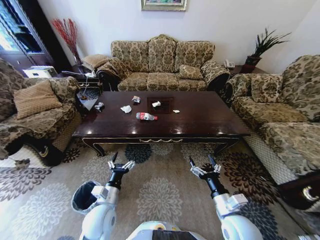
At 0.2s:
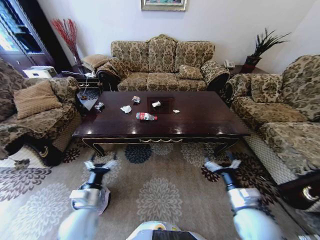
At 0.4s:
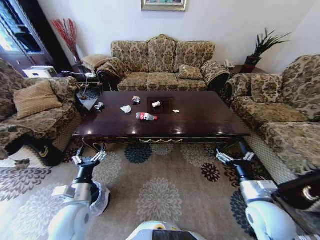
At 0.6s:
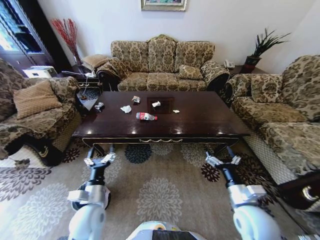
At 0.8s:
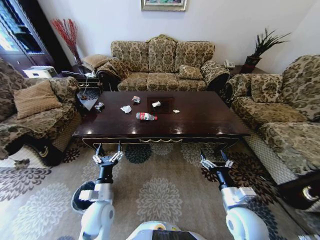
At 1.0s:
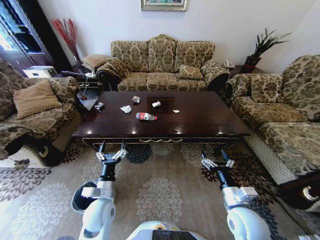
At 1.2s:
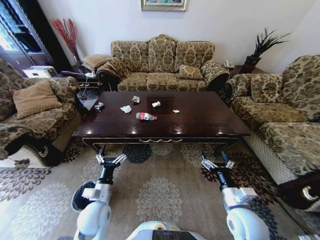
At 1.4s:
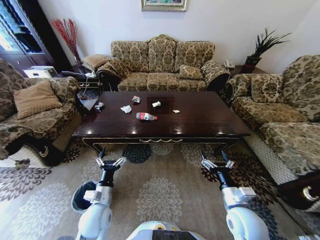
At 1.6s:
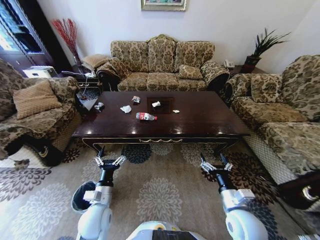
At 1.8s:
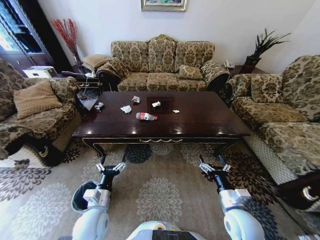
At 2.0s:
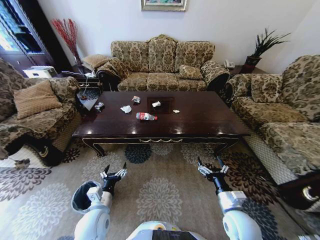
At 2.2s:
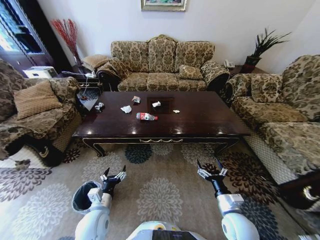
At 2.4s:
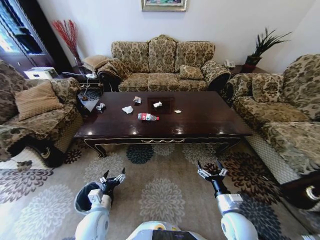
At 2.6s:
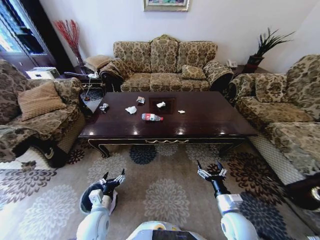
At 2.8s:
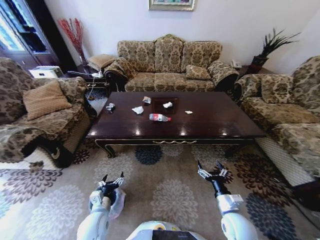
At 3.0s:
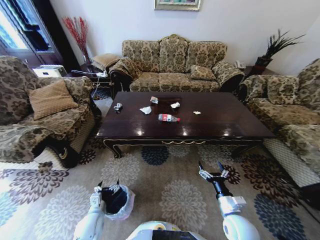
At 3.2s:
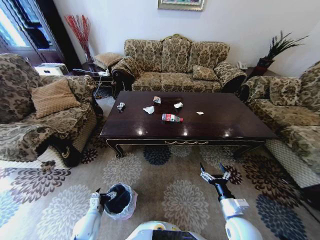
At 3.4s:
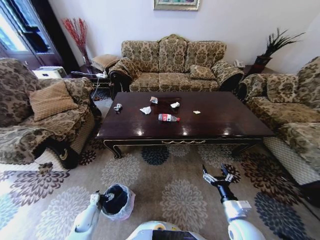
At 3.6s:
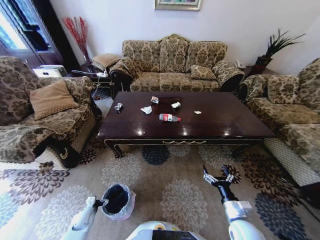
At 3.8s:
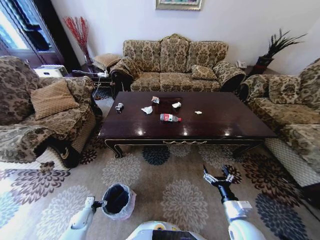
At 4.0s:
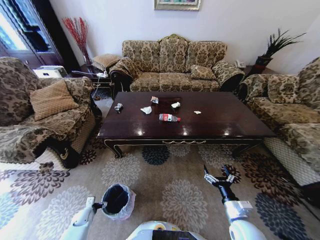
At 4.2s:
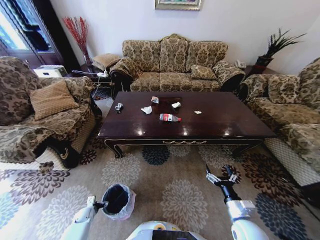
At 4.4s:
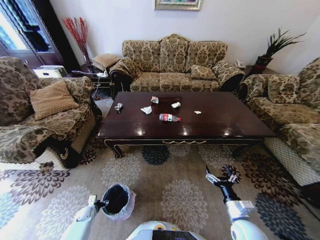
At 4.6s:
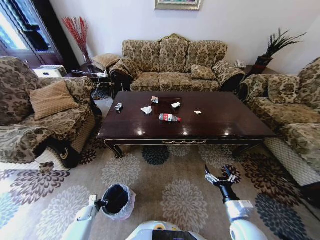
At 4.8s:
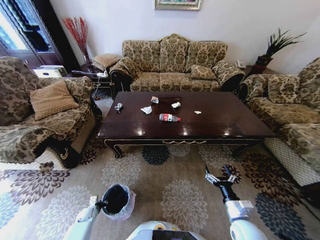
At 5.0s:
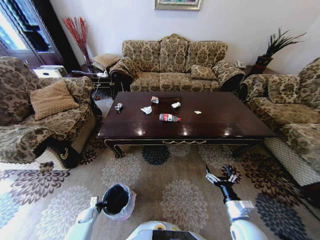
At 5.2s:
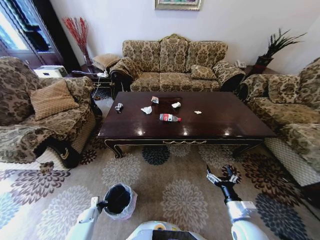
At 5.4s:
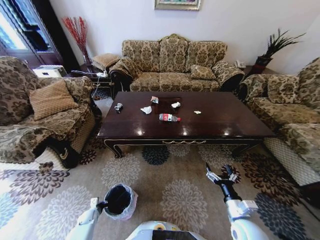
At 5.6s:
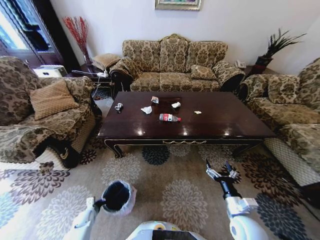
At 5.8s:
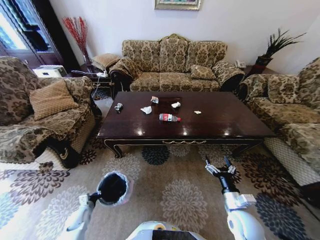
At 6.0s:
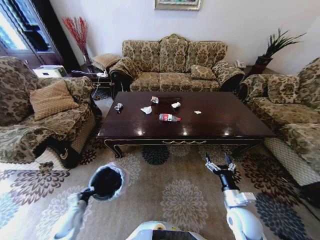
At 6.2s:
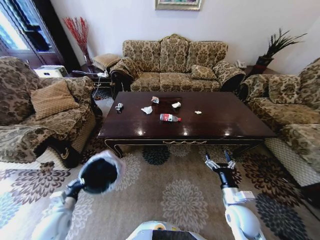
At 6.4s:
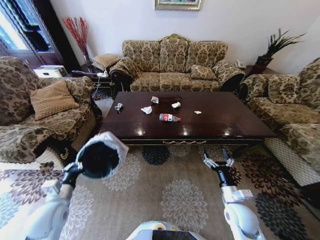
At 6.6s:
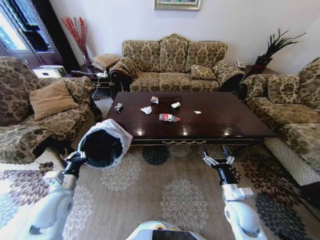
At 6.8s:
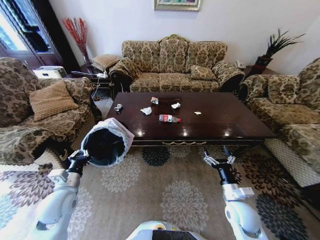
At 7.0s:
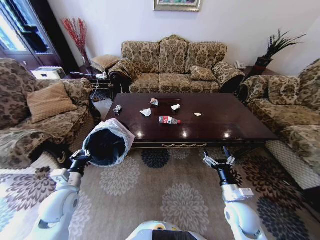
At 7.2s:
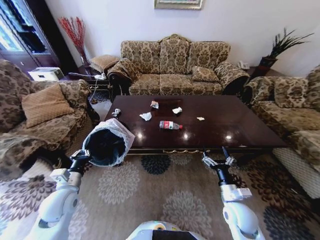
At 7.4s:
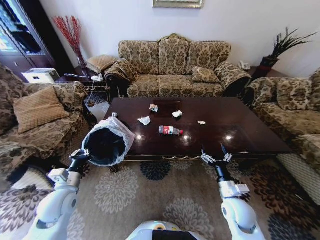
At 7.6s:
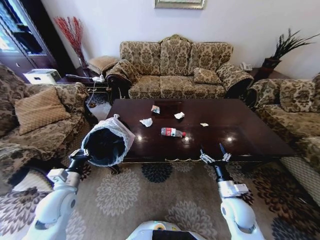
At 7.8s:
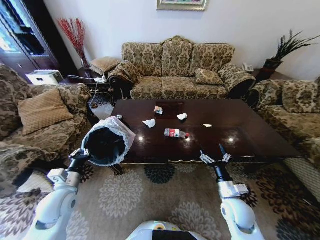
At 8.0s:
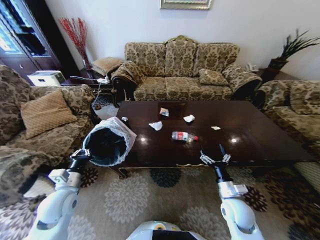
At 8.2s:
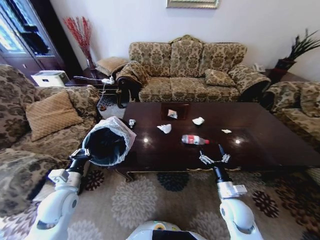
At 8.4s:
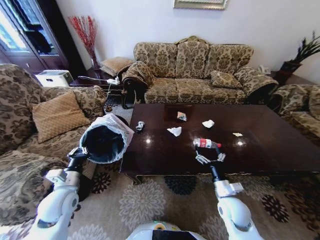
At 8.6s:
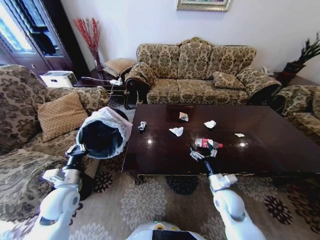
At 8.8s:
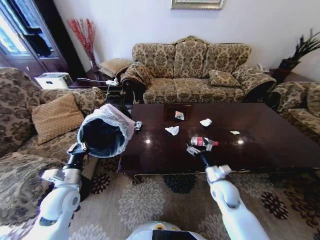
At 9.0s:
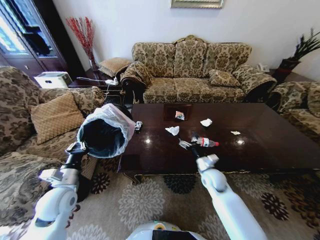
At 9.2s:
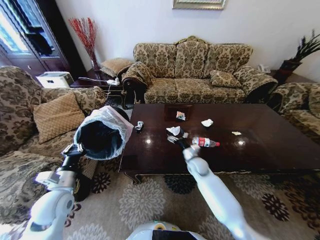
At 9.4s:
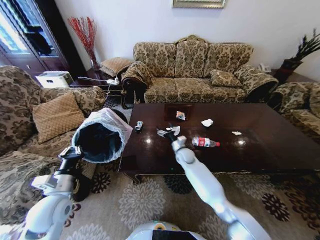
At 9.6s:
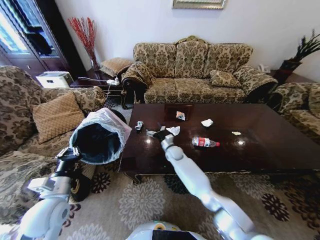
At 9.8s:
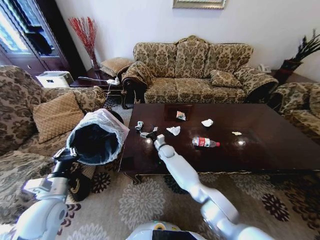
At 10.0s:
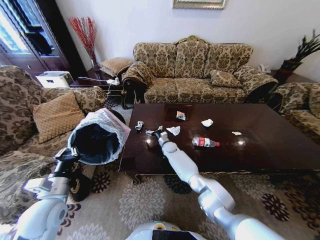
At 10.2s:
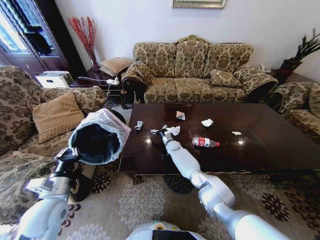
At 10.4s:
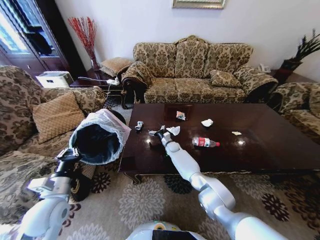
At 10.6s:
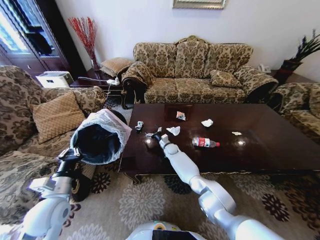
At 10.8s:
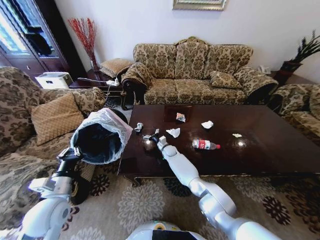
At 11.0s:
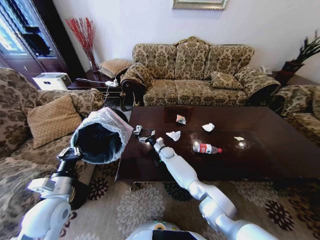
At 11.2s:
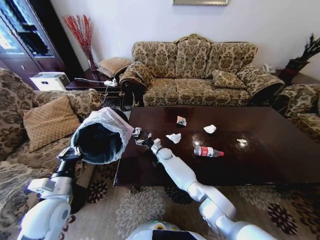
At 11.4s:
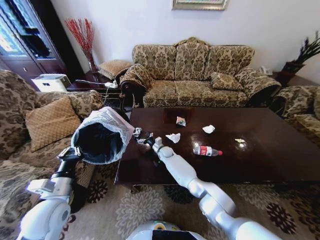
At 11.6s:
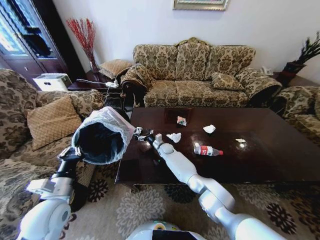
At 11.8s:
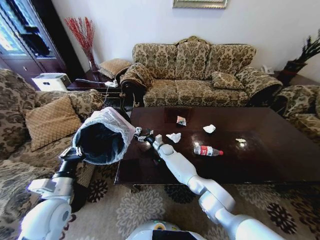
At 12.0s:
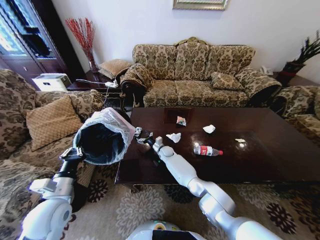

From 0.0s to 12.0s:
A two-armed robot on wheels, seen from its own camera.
Task of the whole recording: Move to the front of the table and place the trash on the table into the trash bin.
From 1.6s to 3.0s: The left gripper is displaced downward and to the left by roughly 10 cm, while the right gripper travels downward by some 5 cm.
From 3.0s to 4.4s: The left gripper shifts about 25 cm downward and to the left.
From 4.4s to 6.0s: The left gripper goes about 15 cm upward, and closes its fingers.
From 6.0s to 7.6s: The left gripper heads upward, covering approximately 20 cm.
From 7.6s to 9.0s: The right gripper goes about 15 cm forward.
From 9.0s to 10.4s: The right gripper moves forward and to the left, about 25 cm.
From 10.4s to 12.0s: The right gripper changes place by some 5 cm.

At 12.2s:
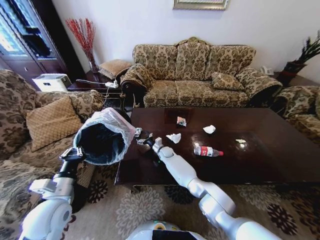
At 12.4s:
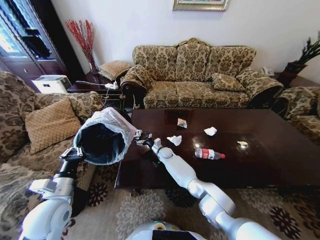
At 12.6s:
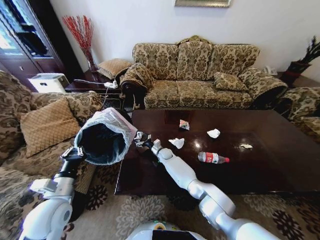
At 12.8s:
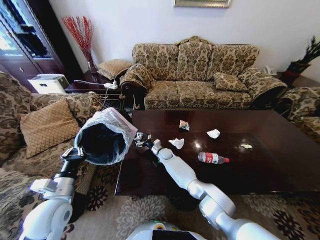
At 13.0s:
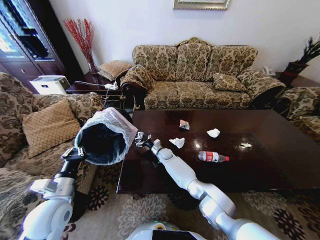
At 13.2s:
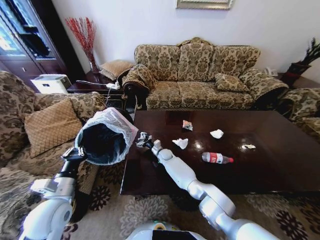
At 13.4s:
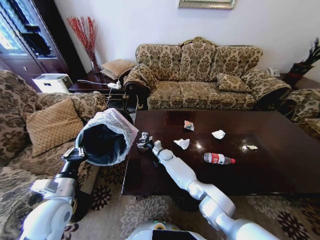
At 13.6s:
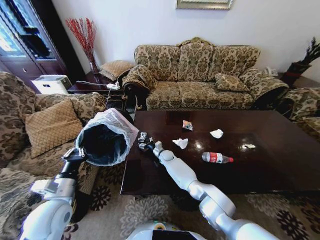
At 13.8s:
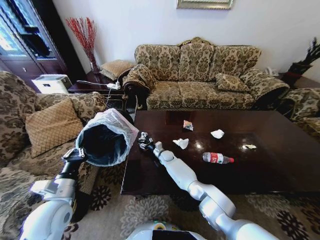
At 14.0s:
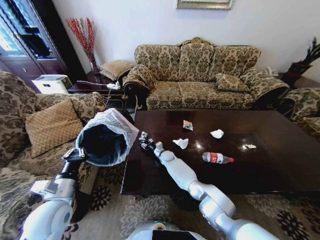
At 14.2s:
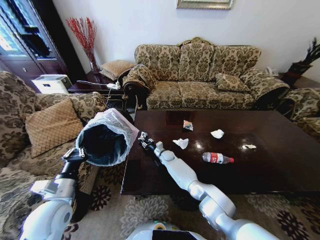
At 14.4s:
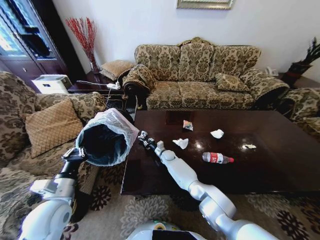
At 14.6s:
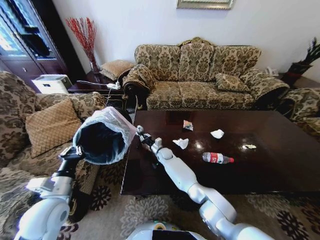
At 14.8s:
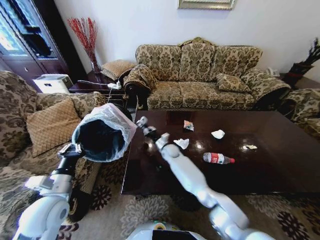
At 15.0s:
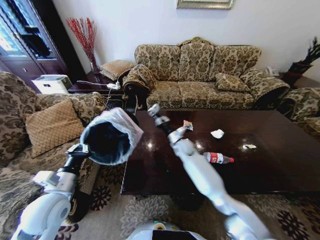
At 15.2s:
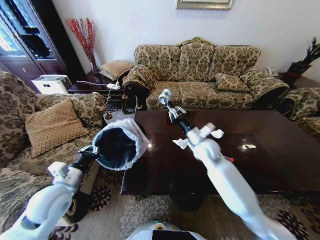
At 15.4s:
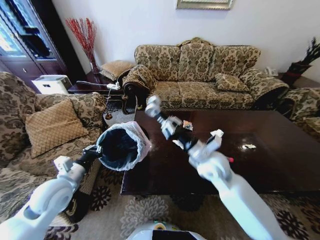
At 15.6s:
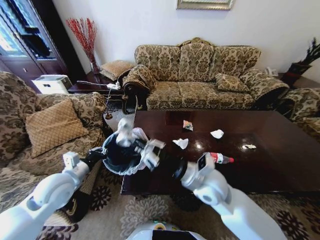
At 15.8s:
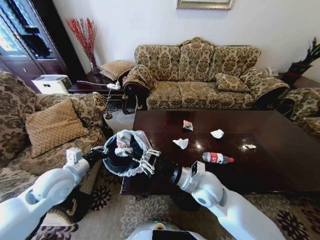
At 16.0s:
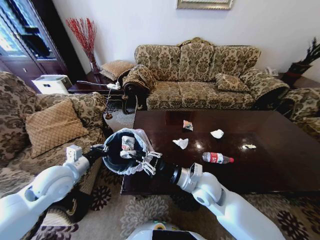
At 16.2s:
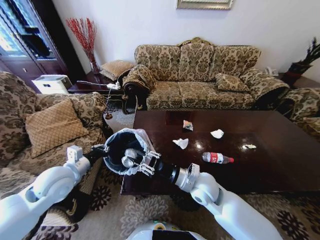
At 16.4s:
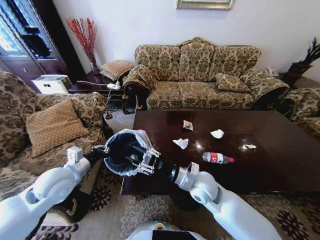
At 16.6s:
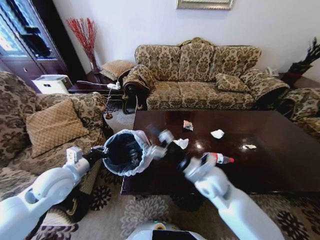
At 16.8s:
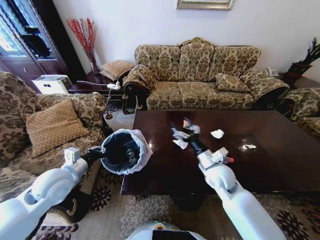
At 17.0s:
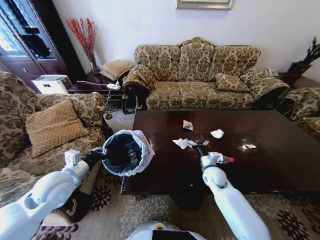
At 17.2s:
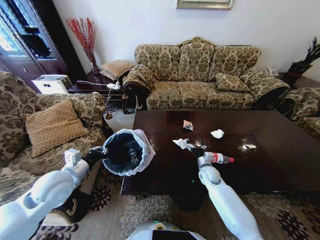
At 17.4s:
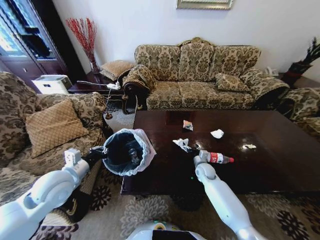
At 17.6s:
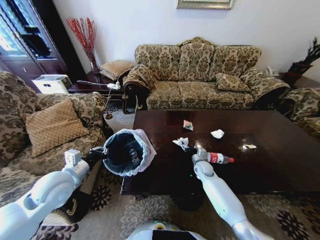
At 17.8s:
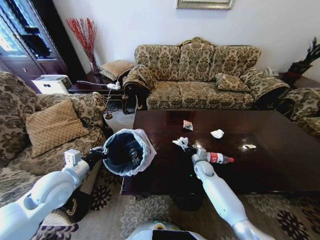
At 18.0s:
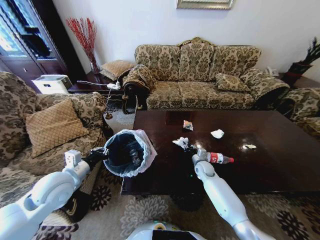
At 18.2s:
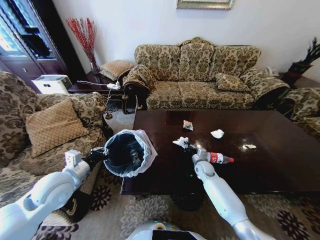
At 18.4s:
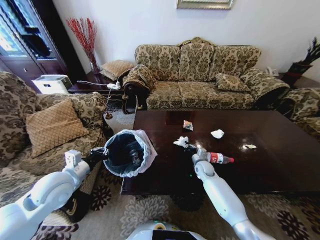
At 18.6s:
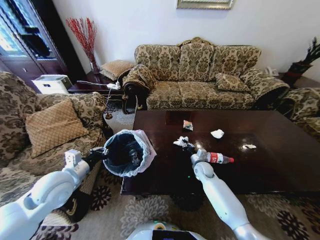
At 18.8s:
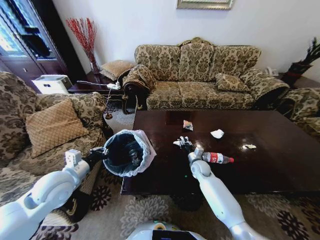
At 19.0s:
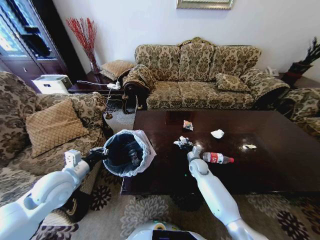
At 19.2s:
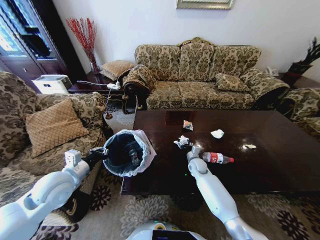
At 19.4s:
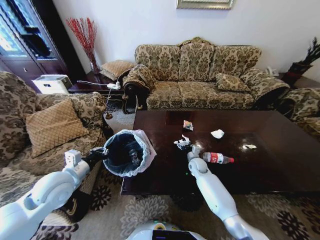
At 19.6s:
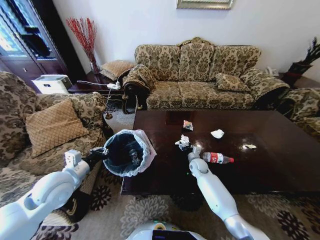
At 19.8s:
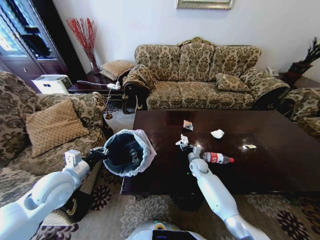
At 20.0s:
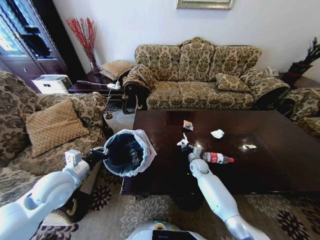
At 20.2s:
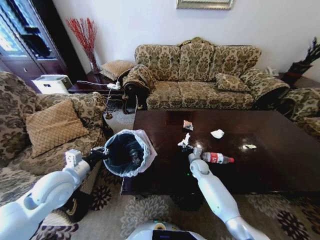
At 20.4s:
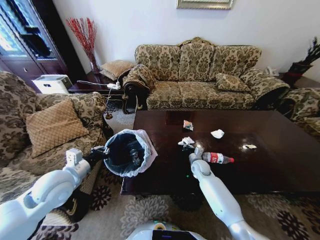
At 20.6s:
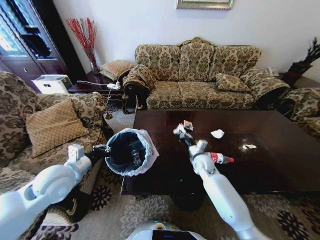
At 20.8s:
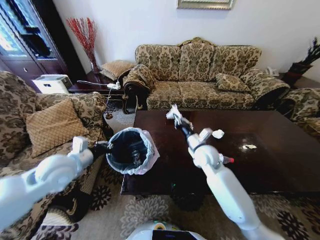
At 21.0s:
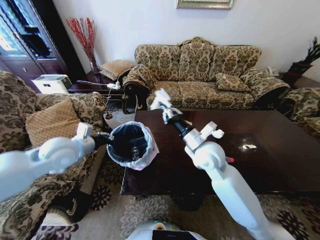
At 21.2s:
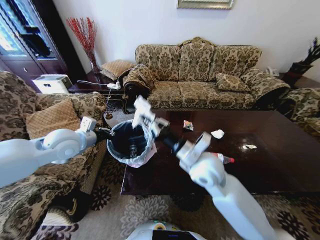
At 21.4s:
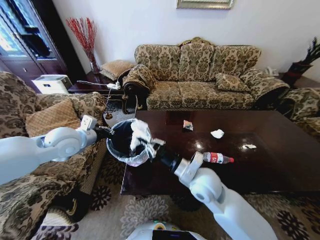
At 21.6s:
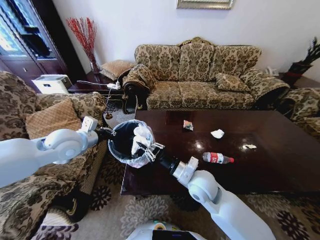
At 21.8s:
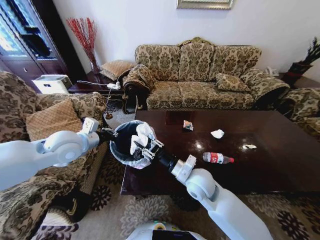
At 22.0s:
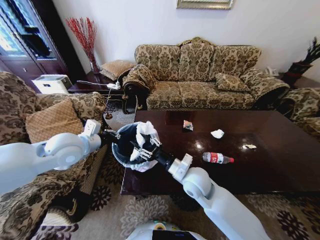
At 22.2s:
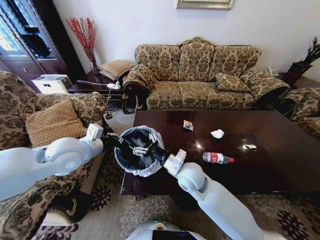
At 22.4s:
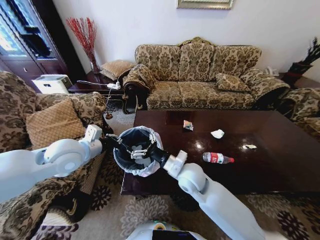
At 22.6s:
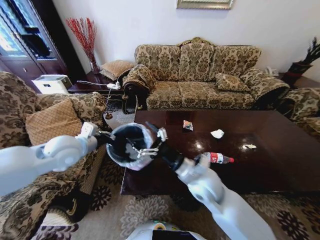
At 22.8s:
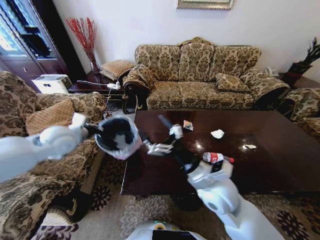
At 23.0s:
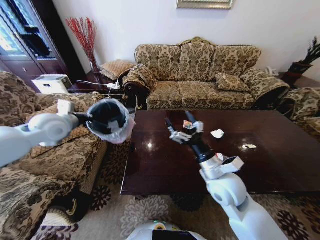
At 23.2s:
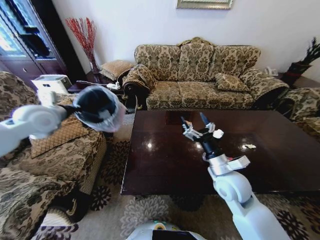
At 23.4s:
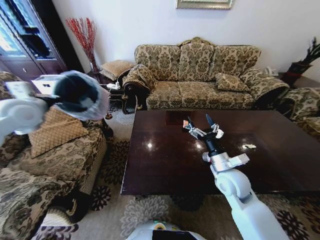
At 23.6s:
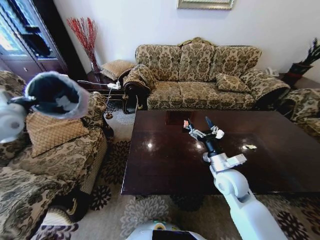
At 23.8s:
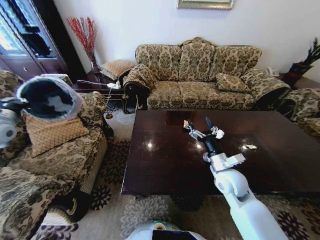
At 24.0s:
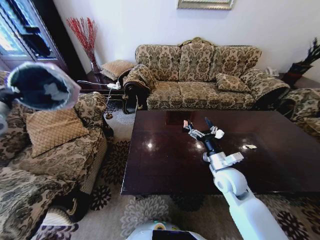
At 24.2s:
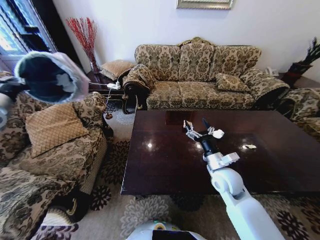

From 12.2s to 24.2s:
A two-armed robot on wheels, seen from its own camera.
Task of the whole recording: Move to the front of the table and place the trash on the table into the trash bin.
From 13.8s to 15.2s: The right gripper heads upward, to the right and backward, covering some 30 cm, and closes up.
From 15.2s to 16.6s: The left gripper shifts by roughly 5 cm, while the right gripper travels backward by roughly 10 cm, and opens its fingers.
From 16.6s to 18.2s: The right gripper travels downward, forward and to the right by approximately 25 cm, and closes its fingers.
From 18.2s to 19.8s: The right gripper opens and closes again.
From 19.8s to 21.2s: The right gripper heads upward and backward, covering approximately 30 cm, and closes. Meanwhile the left gripper shifts roughly 15 cm forward and upward.
From 21.2s to 22.6s: The right gripper opens up.
From 22.6s to 24.2s: The left gripper moves to the left, approximately 30 cm. The right gripper shifts roughly 10 cm to the right and downward.
